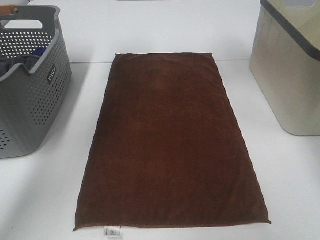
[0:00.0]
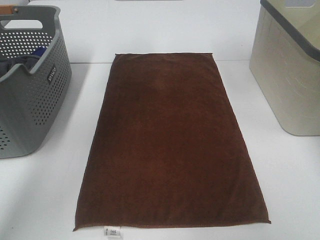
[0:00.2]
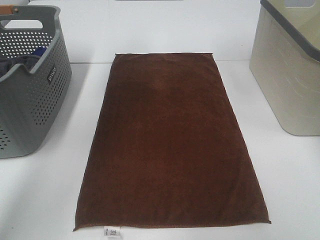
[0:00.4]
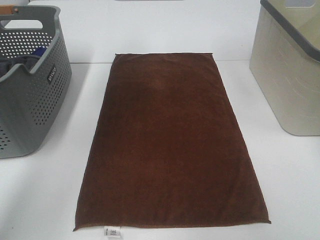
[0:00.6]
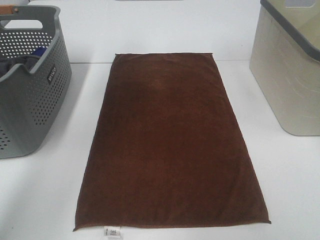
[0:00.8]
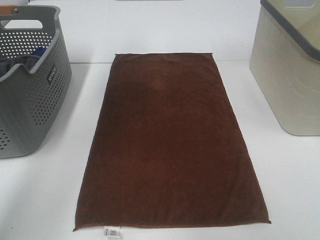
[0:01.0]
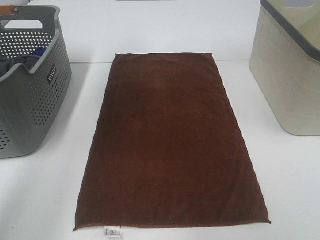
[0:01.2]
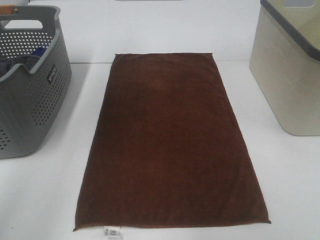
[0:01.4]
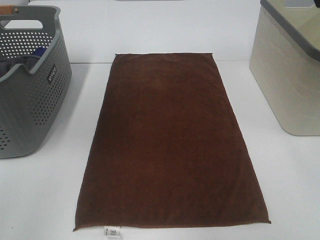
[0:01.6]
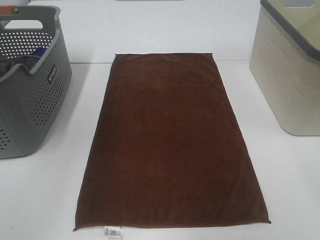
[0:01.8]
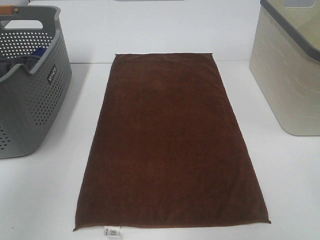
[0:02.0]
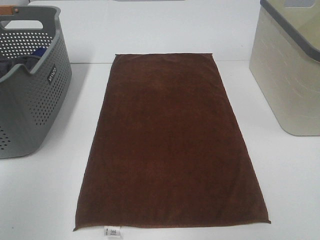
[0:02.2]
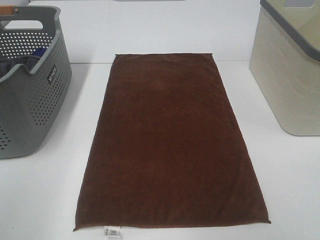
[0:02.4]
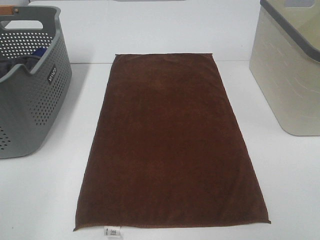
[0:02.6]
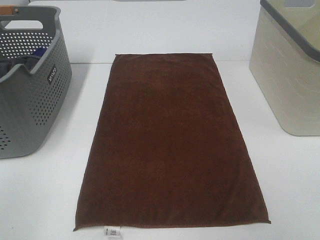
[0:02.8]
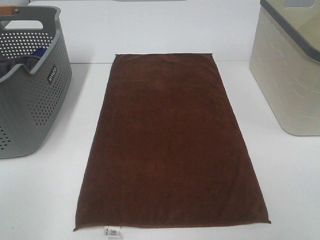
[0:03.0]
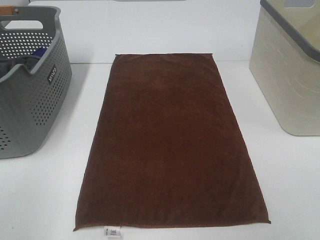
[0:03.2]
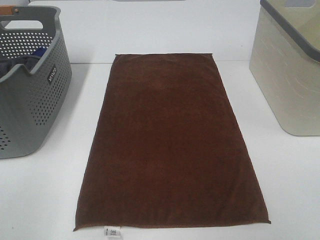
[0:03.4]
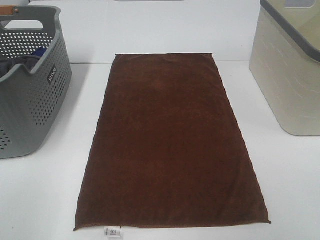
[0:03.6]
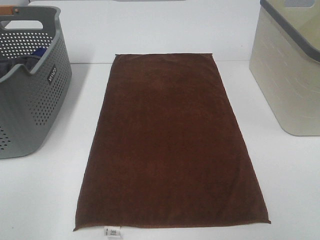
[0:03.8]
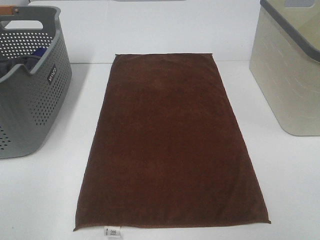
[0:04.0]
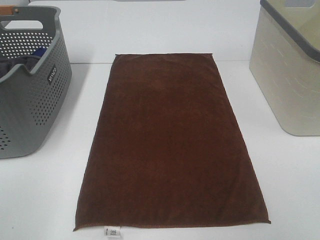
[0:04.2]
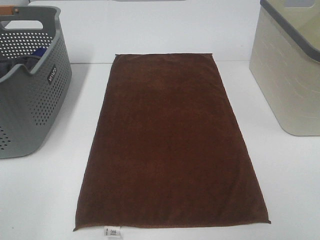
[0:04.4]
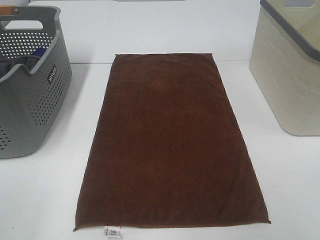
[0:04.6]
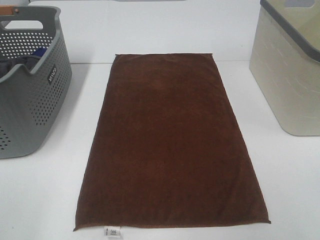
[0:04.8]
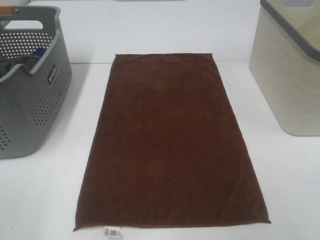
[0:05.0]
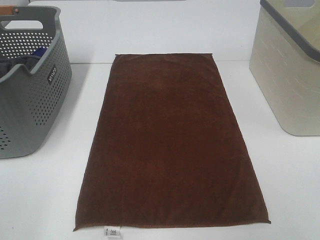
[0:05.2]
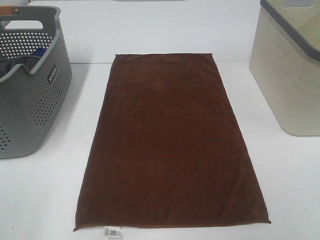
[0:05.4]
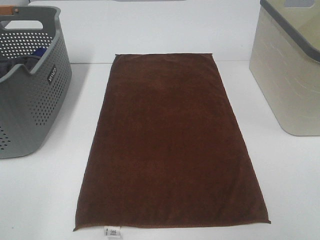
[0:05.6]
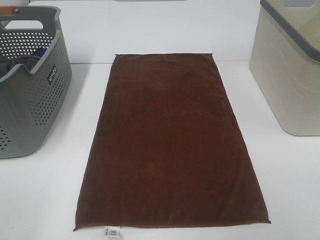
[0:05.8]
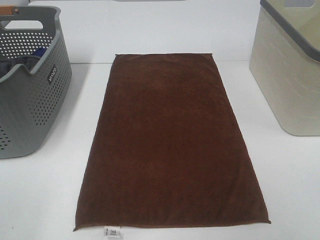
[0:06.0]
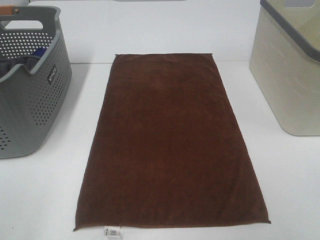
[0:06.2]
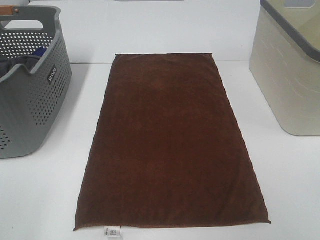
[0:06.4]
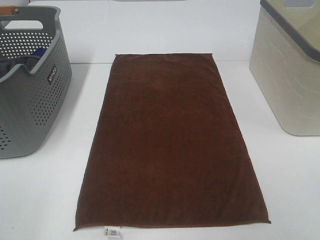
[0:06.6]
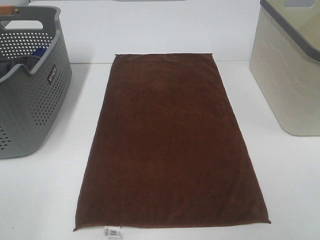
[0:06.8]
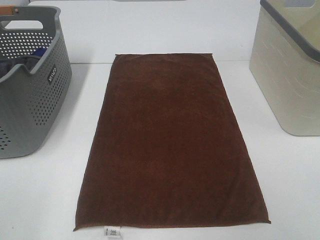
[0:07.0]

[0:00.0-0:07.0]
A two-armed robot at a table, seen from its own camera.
Task of the whole recording: Remove the towel and place it.
0:00.0 to 0:01.4: The left gripper goes roughly 25 cm backward and upward.
0:01.4 to 0:02.8: The left gripper heads backward and downward, covering roughly 40 cm.
0:05.6 to 0:07.0: The two grippers keep their place.

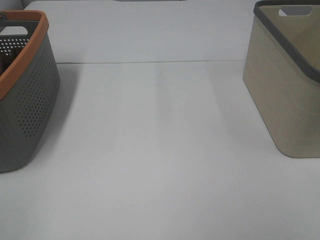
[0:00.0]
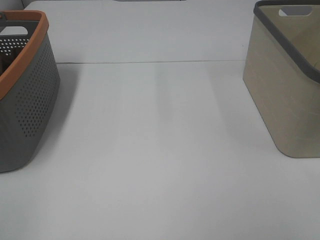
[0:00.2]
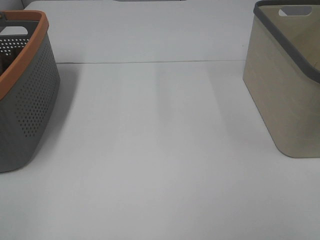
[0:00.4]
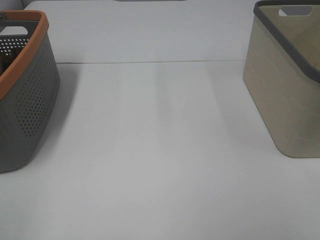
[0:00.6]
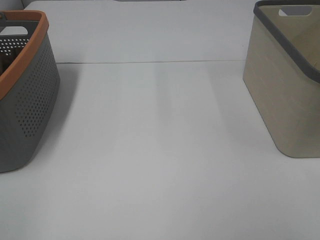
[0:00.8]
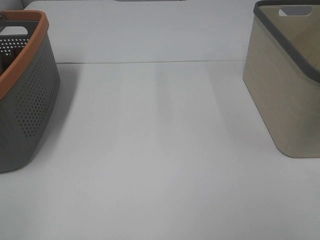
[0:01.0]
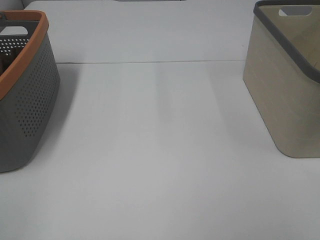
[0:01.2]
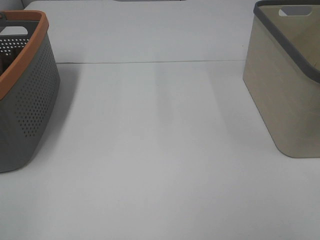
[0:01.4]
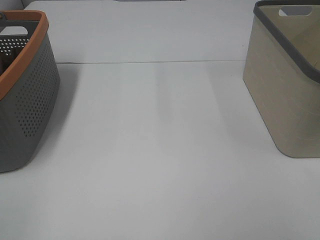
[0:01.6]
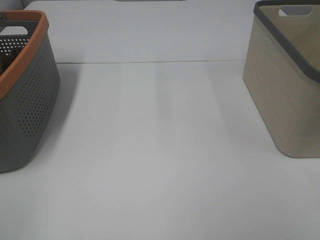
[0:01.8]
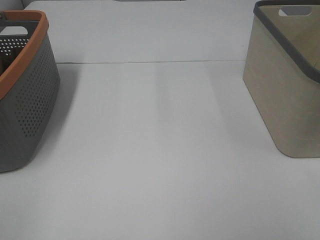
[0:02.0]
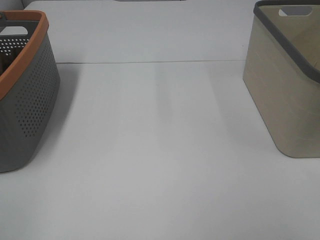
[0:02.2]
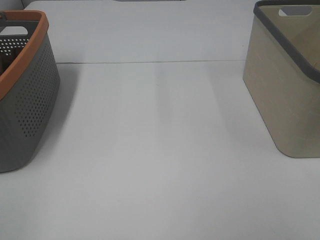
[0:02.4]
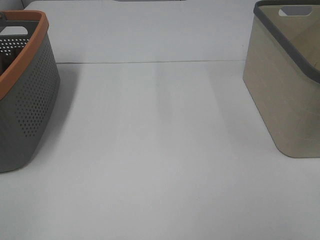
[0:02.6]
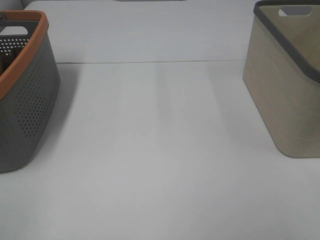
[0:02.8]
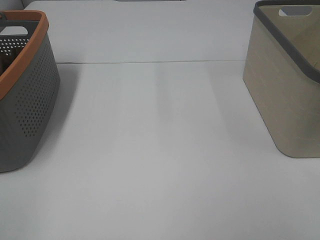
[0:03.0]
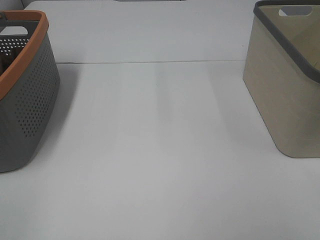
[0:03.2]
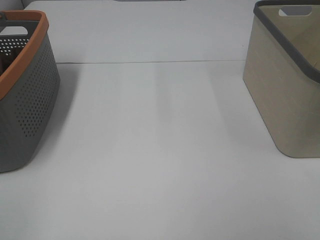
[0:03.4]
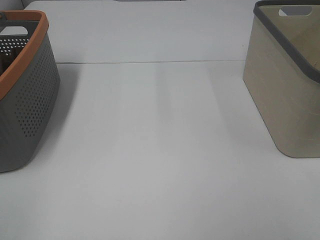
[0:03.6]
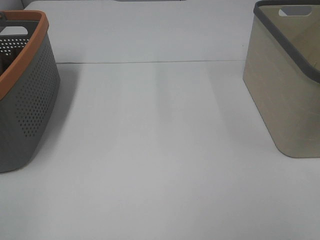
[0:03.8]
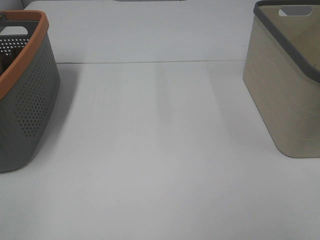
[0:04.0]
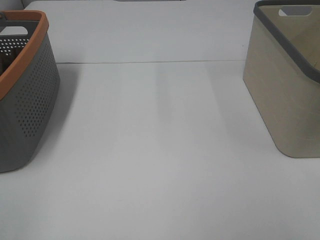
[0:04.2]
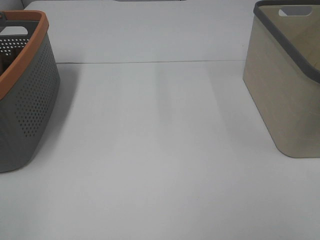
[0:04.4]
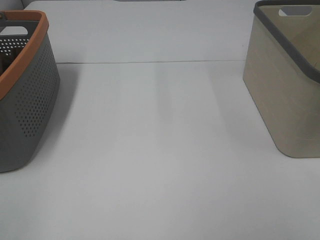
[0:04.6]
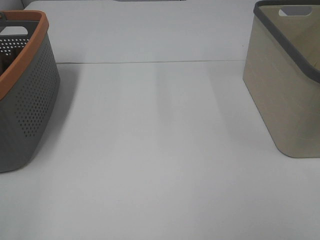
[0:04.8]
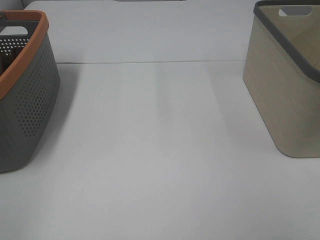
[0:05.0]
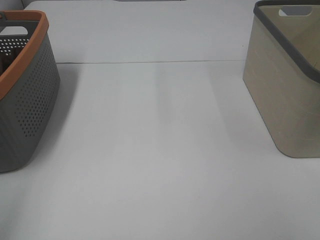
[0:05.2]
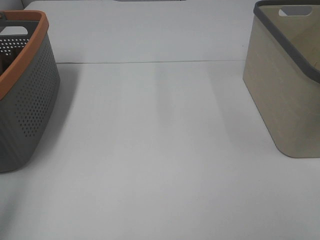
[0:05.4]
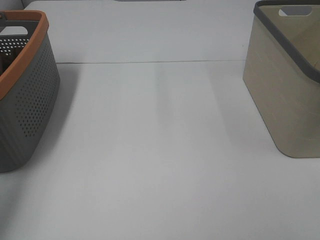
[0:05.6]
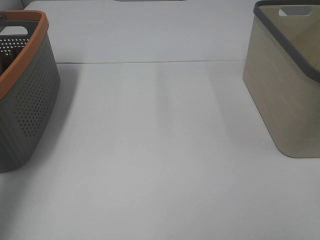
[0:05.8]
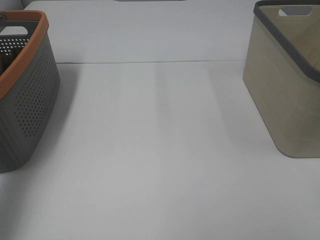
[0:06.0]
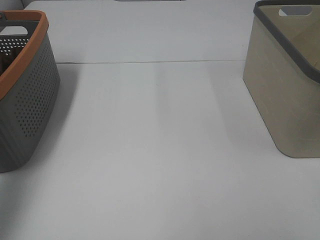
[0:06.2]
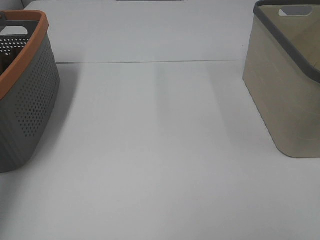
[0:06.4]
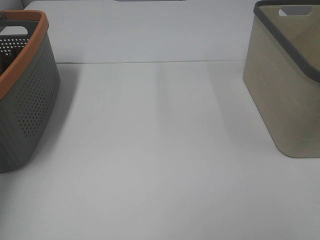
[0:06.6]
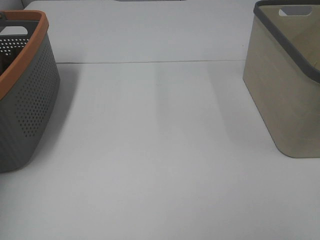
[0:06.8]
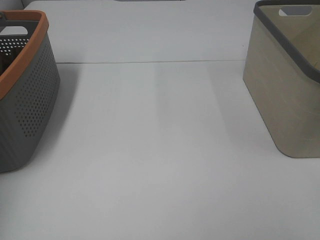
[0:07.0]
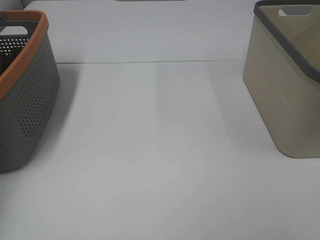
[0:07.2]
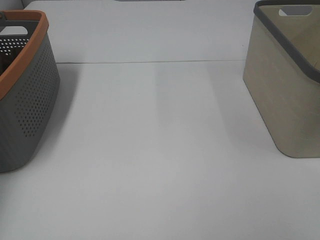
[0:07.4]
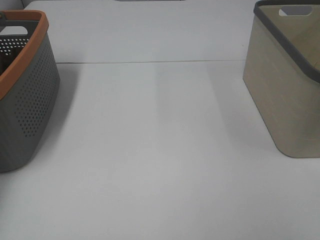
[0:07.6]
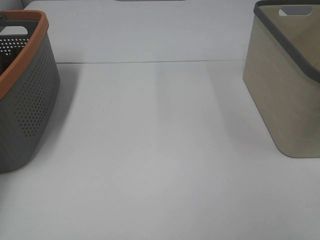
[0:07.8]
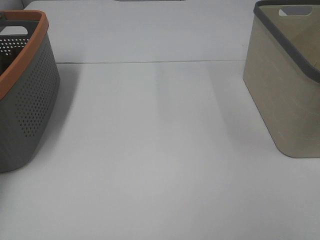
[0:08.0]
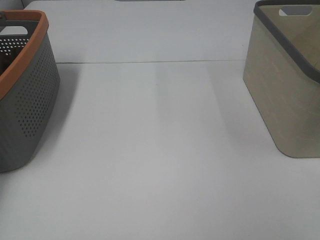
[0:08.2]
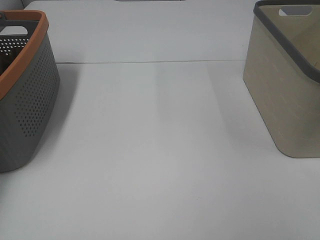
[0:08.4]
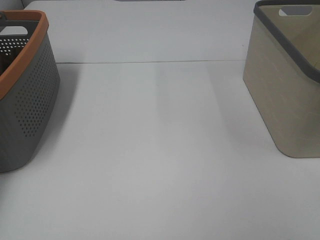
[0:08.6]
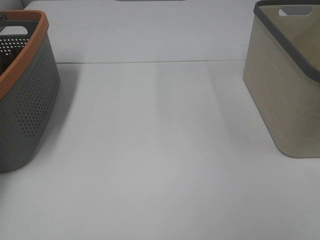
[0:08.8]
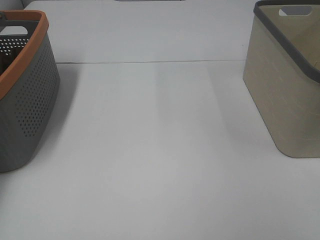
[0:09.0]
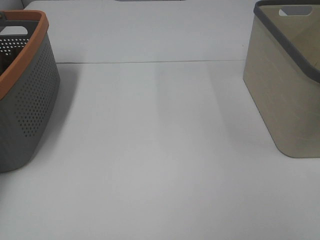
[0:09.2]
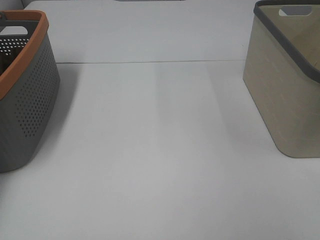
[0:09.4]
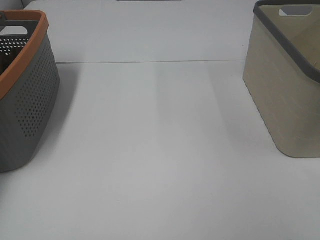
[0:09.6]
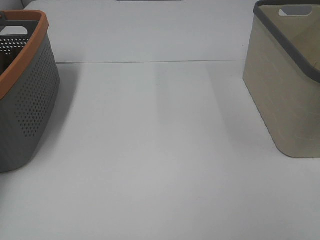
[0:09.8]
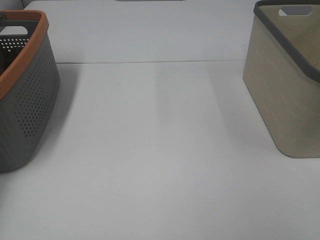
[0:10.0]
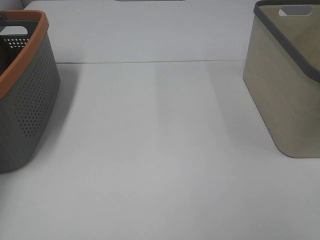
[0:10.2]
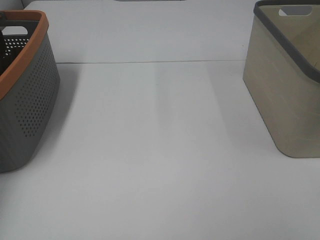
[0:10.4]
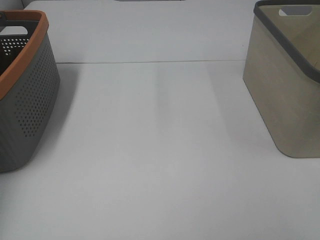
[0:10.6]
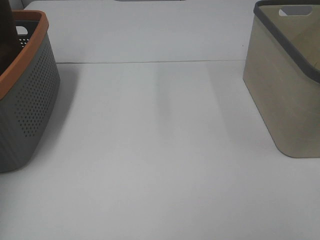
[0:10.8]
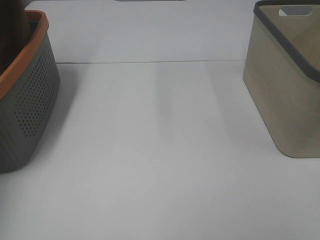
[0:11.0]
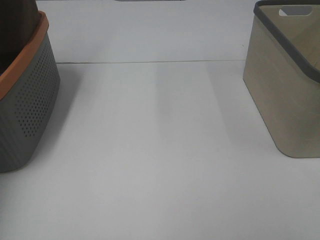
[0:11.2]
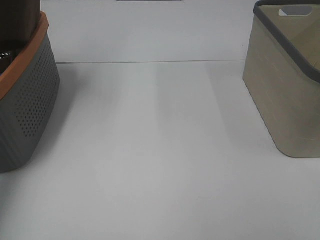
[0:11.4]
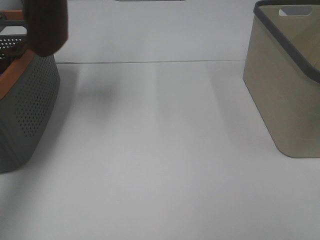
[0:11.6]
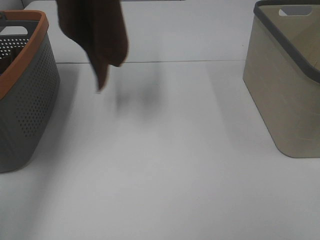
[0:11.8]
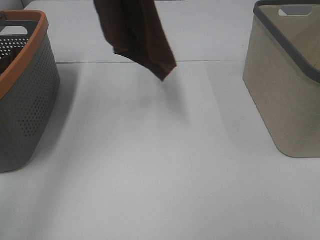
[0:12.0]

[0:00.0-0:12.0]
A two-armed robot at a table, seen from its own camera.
Task of the whole recording: Remove the towel and place it.
0:00.0 to 0:04.4: The two grippers keep their place.
0:04.4 to 0:06.0: The left gripper goes about 25 cm forward.
0:06.0 to 0:07.6: The left gripper goes roughly 25 cm forward, to the left and downward.
0:10.4 to 0:12.0: The left gripper moves to the right and upward, approximately 30 cm.

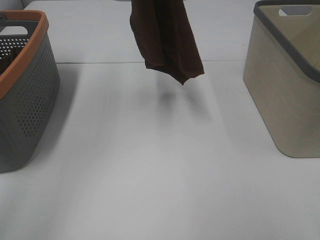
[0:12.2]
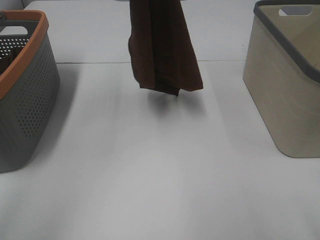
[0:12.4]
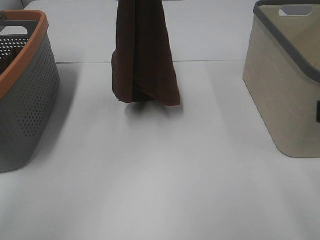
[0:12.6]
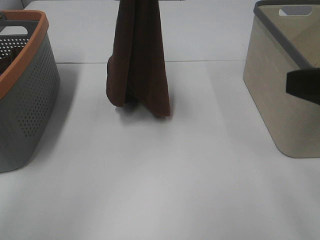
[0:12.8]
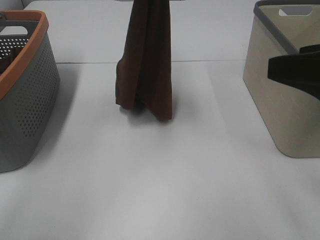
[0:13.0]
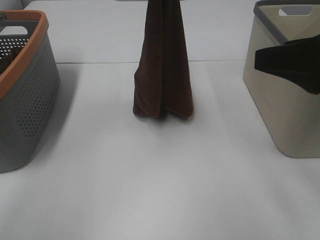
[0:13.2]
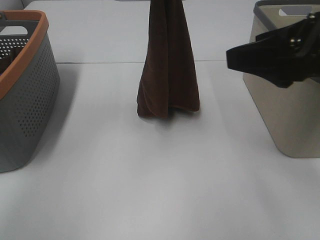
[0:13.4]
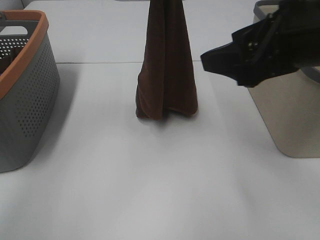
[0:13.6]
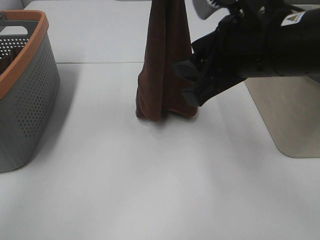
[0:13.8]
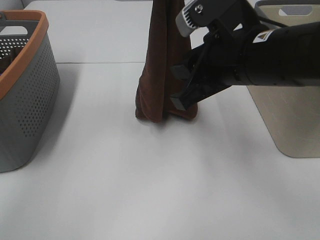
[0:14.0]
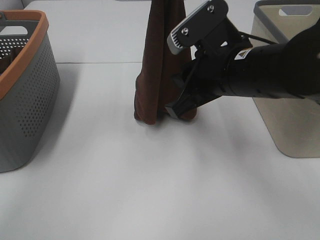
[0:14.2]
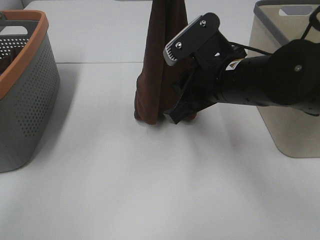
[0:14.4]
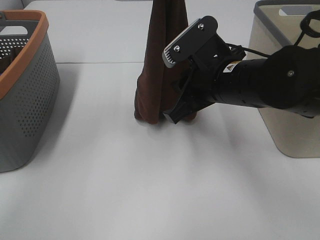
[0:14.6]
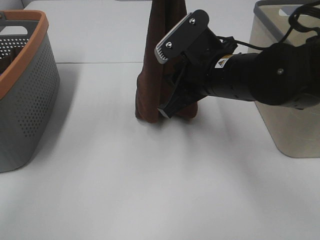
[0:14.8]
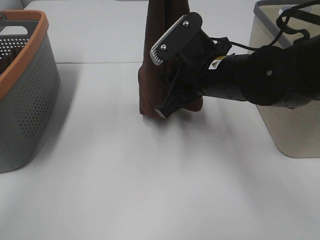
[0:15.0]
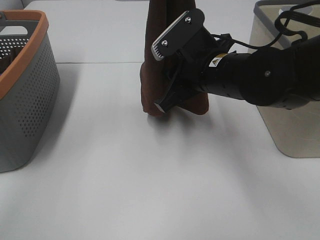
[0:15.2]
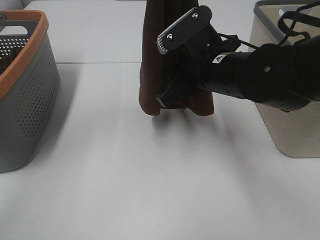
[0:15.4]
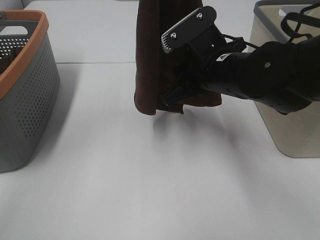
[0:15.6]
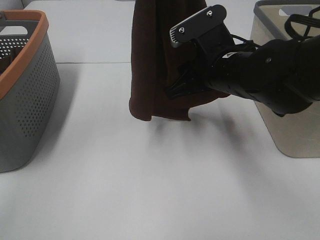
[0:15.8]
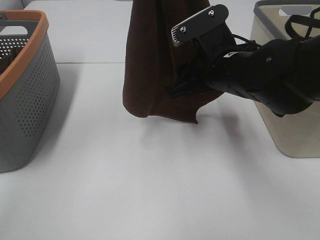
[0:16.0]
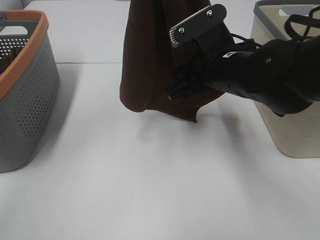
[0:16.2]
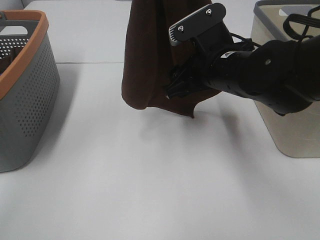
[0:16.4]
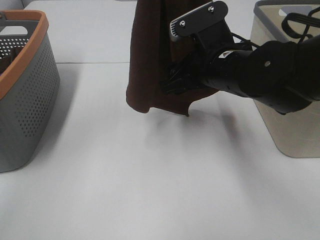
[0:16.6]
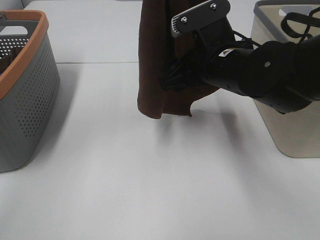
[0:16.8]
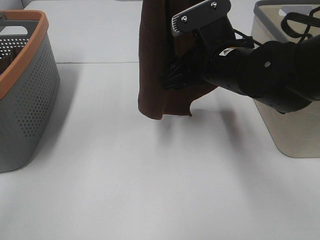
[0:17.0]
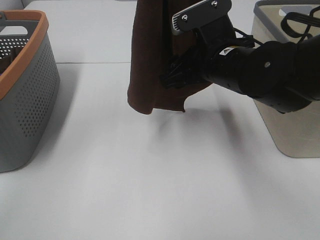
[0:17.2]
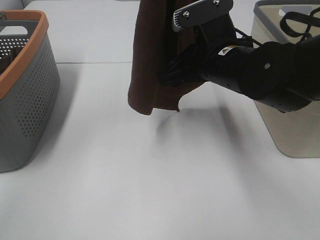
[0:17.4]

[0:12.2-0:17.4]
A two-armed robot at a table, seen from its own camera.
Task of the whole recording: Remove the towel and place it.
Step, 0:12.2 to 0:16.2: Right hand: grab a corner of the brown towel and straighten it.
0:12.2 to 0:14.0: The left gripper goes about 10 cm to the right and downward. The right gripper travels forward and to the left by about 25 cm, and closes.
0:14.0 to 0:15.6: The right gripper is displaced downward and forward by roughly 5 cm. The left gripper travels upward by some 5 cm.
0:15.6 to 0:17.4: The right gripper opens.
